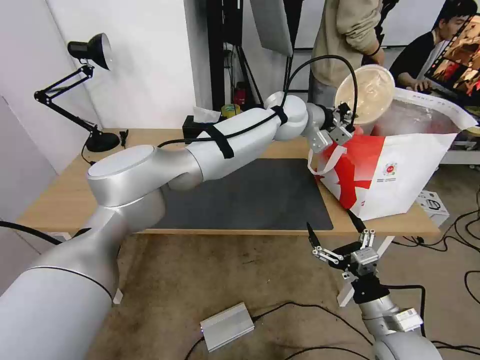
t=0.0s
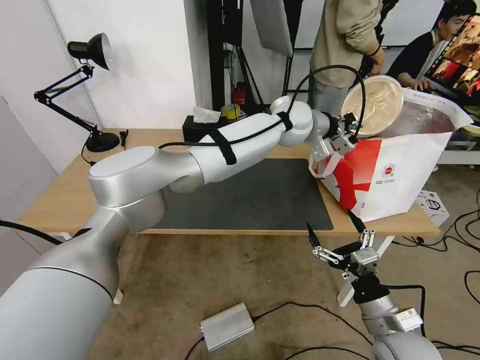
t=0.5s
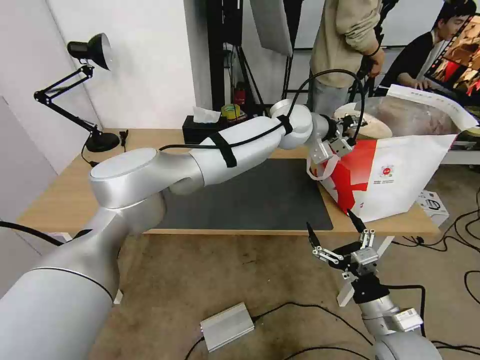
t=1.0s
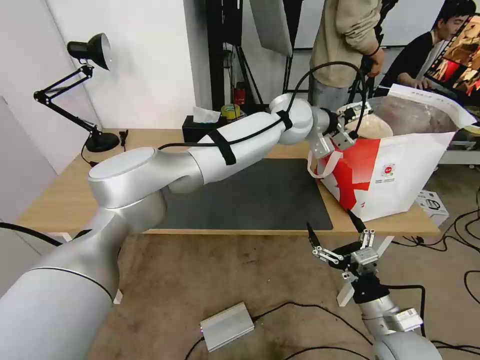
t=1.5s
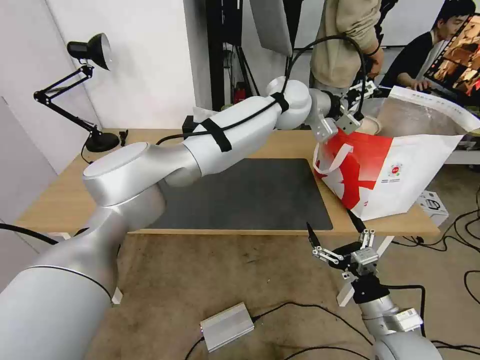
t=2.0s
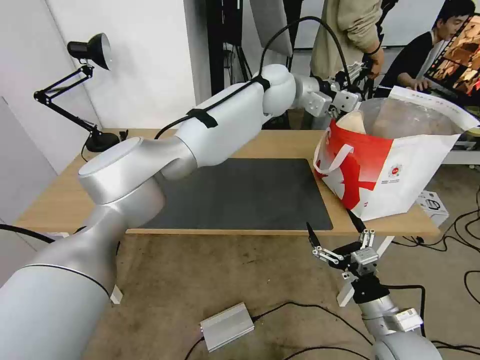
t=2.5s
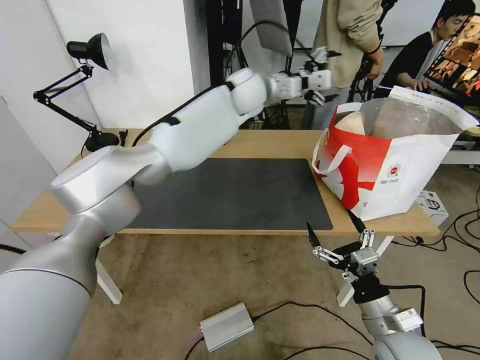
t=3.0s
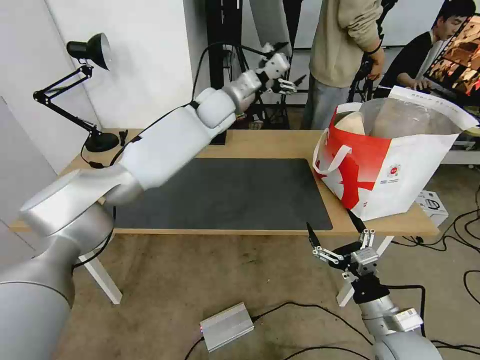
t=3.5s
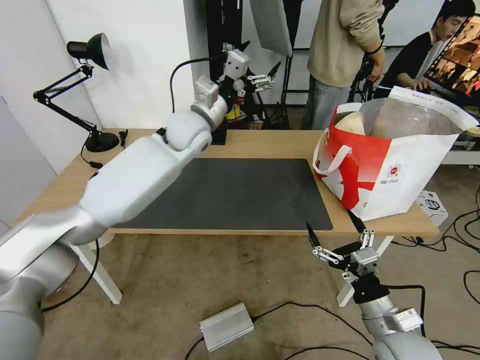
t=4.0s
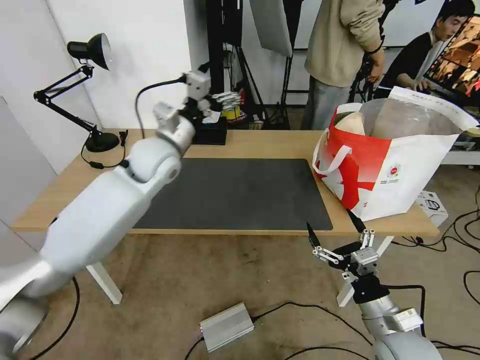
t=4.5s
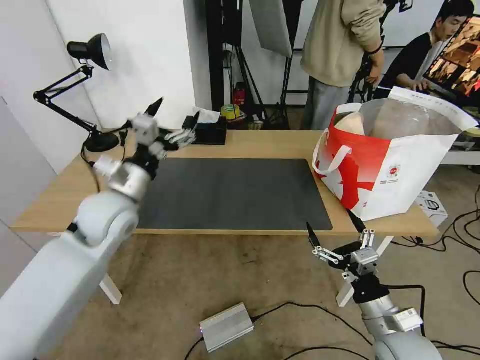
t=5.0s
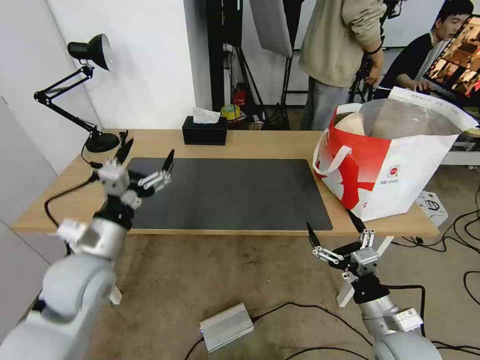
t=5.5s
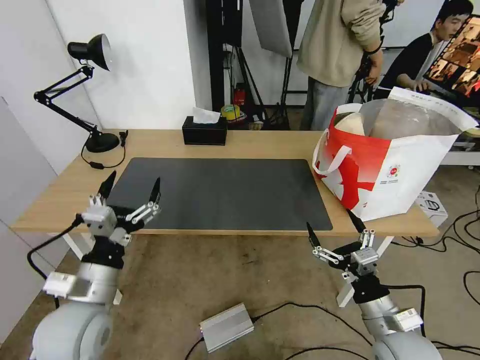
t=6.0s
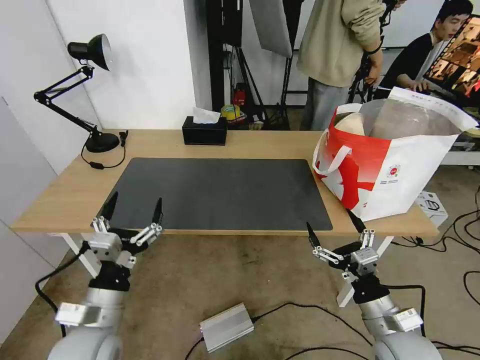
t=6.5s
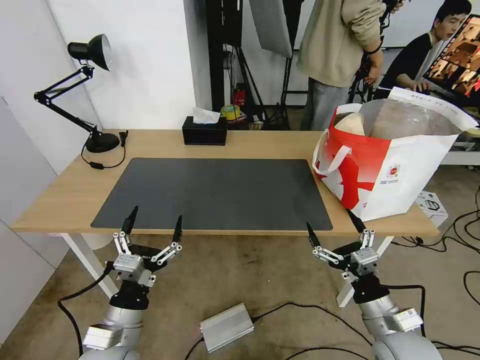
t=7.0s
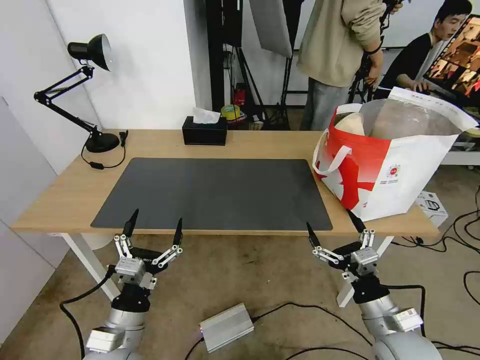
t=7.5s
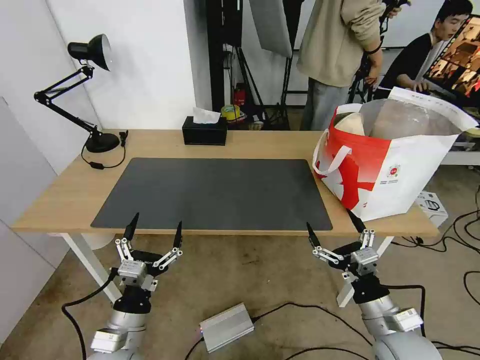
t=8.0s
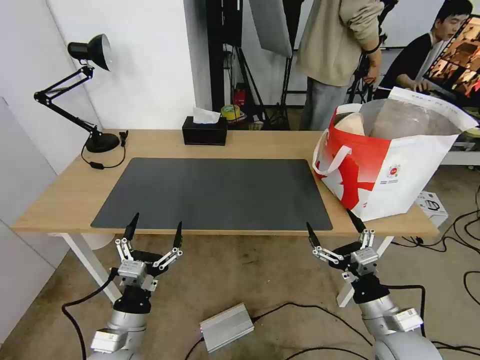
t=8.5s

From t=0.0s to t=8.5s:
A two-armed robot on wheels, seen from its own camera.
Task of the whole recording: Pick up the trash from the table and place it into the takeout bag.
From t=0.0s to t=2.0s: The left gripper opens up.
From t=2.0s to t=4.0s: The left gripper shifts some 20 cm to the left.
From t=4.0s to t=6.5s: The left gripper goes about 40 cm backward and downward.
From t=6.5s to t=8.5s: The left gripper heads downward, covering approximately 5 cm.

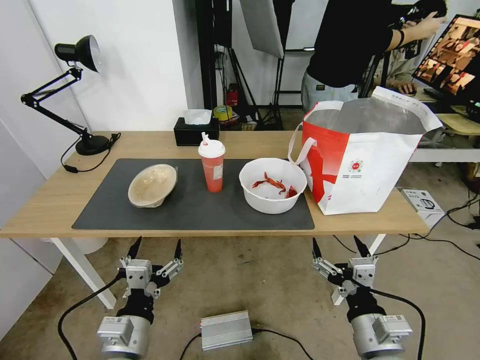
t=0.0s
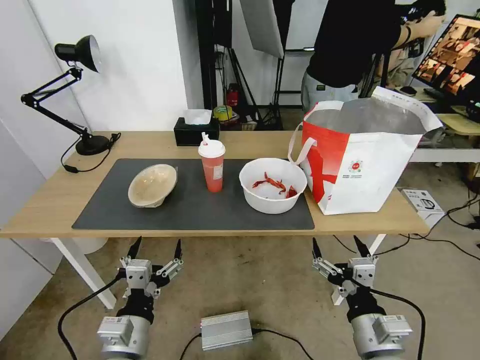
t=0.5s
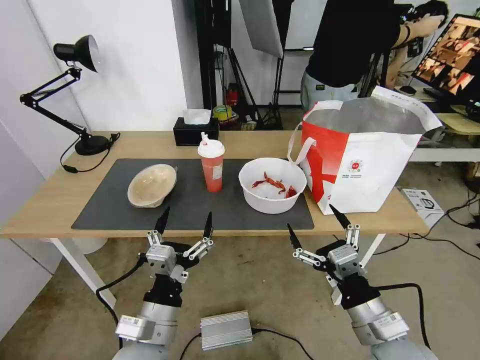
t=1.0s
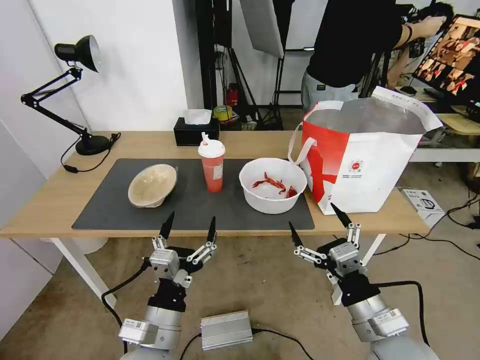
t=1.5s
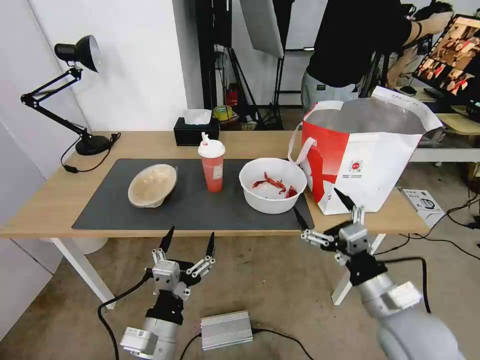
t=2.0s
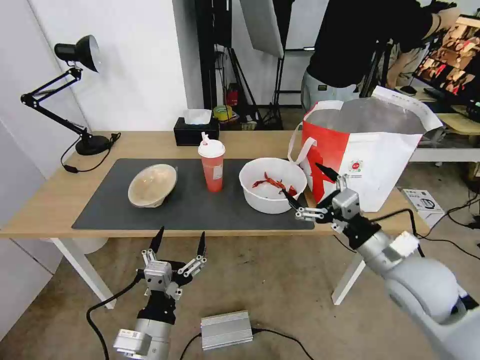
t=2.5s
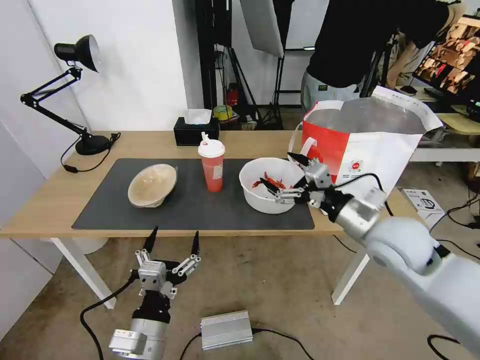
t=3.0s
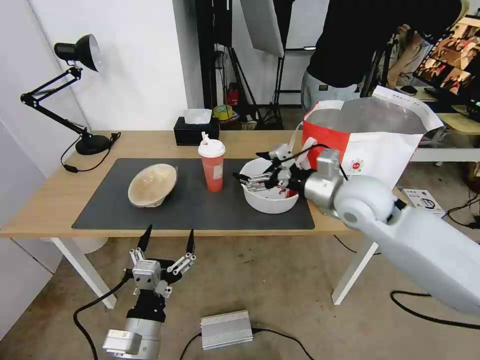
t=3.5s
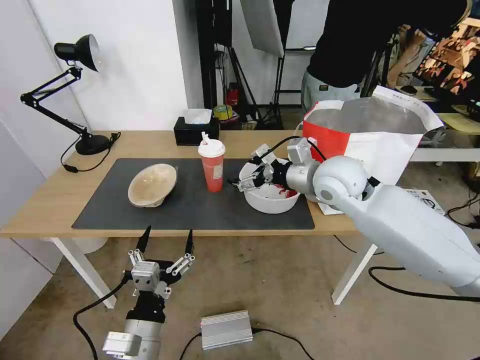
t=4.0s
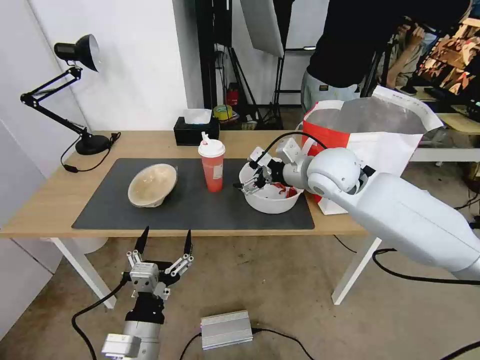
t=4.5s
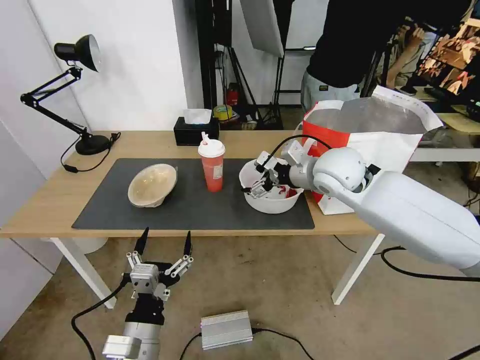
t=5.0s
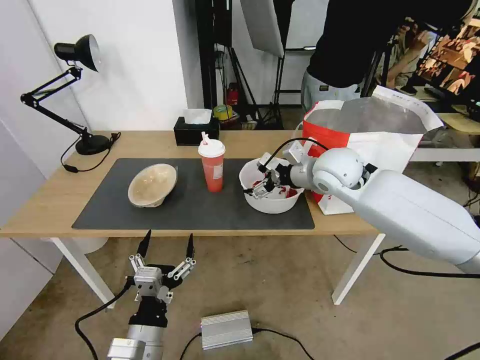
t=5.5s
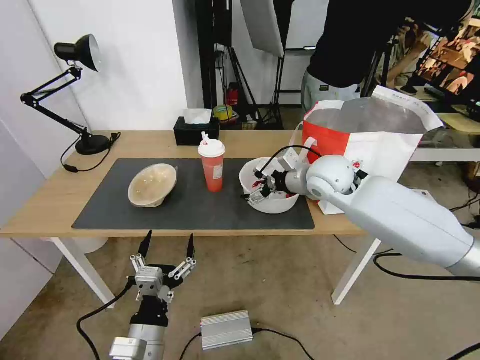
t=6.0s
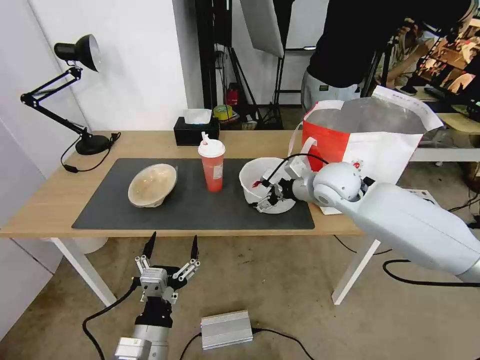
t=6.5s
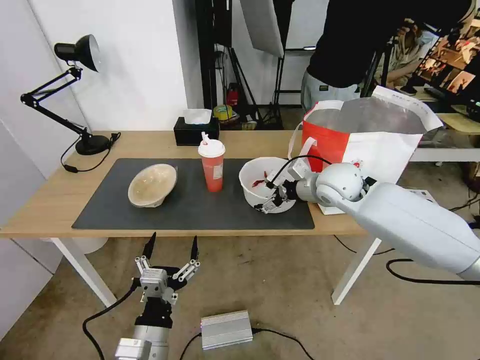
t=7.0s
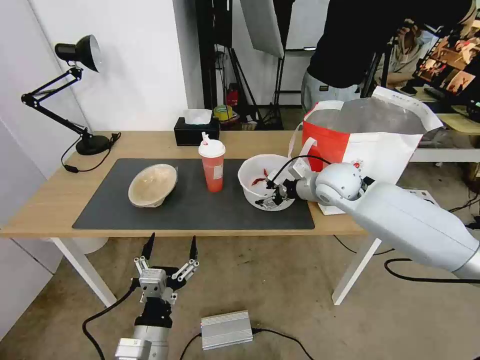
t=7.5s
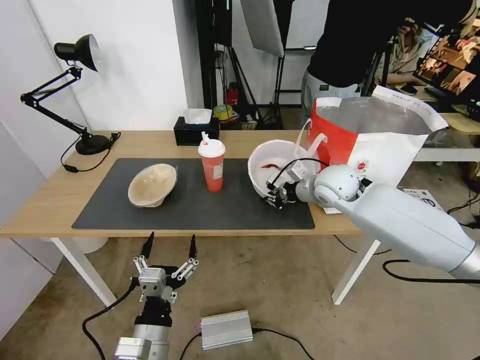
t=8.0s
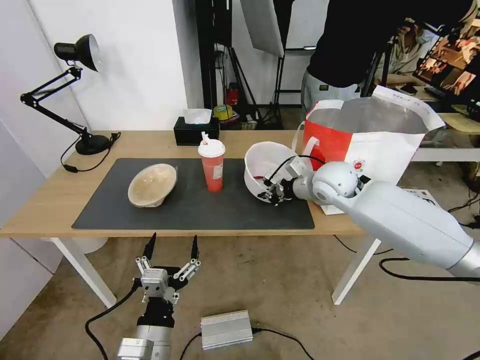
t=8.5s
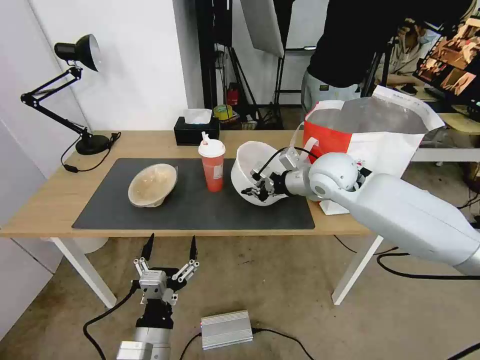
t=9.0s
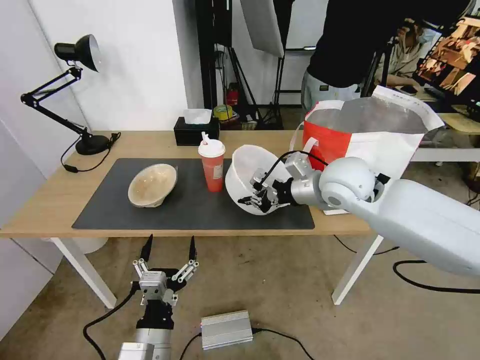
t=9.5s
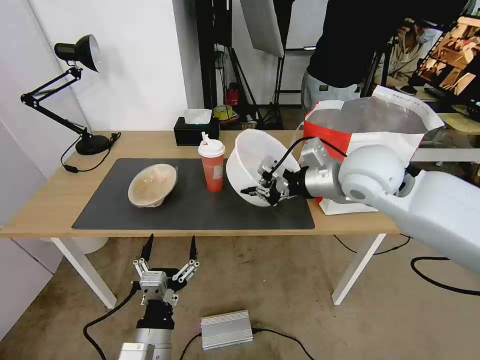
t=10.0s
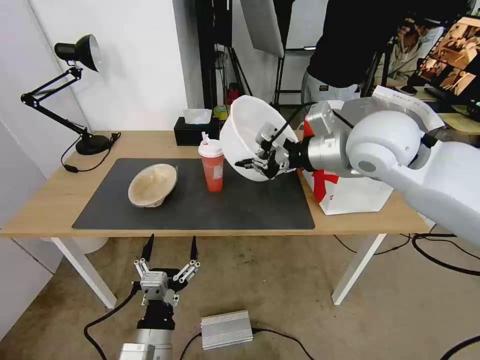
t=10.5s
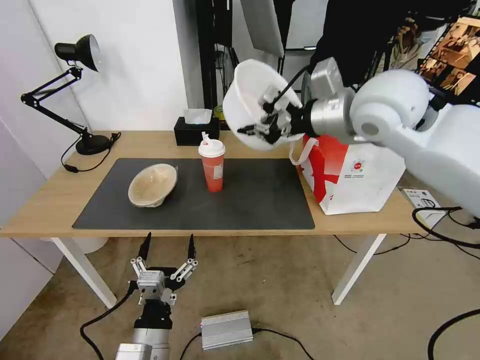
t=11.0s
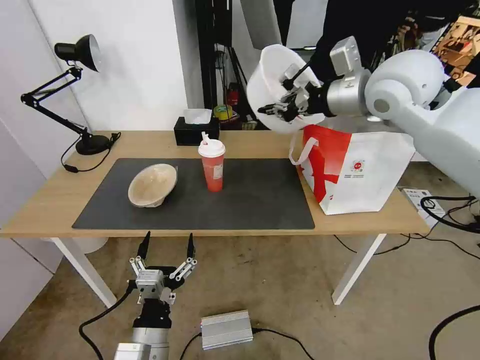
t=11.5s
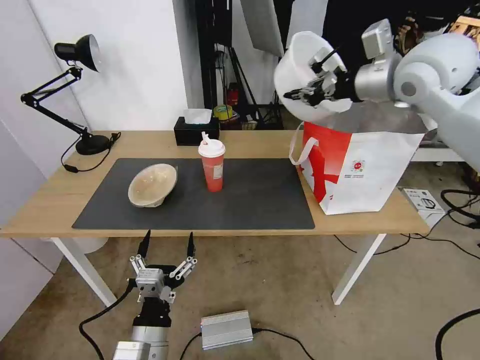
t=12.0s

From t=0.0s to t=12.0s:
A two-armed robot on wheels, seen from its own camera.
Task of the whole recording: Pick up the trash from the table and place it into the takeout bag.
From t=2.0s to t=4.0s: The right gripper travels forward and upward by some 30 cm.
From t=4.0s to t=6.0s: The right gripper ends up some 5 cm from where it was.
From t=6.0s to t=8.0s: The right gripper ends up roughly 5 cm from where it was, and closes.
From t=8.0s to t=10.0s: The right gripper goes some 15 cm upward and backward.
From t=10.0s to t=12.0s: The right gripper heads upward, forward and to the right, covering approximately 20 cm.

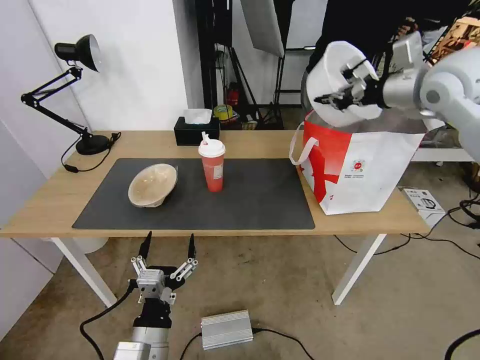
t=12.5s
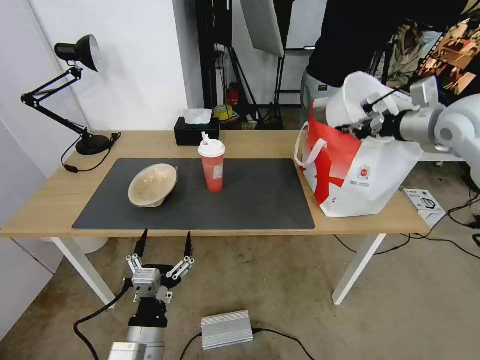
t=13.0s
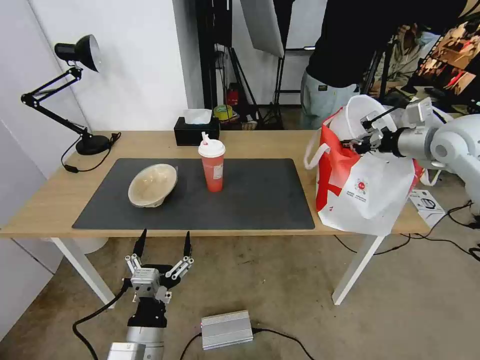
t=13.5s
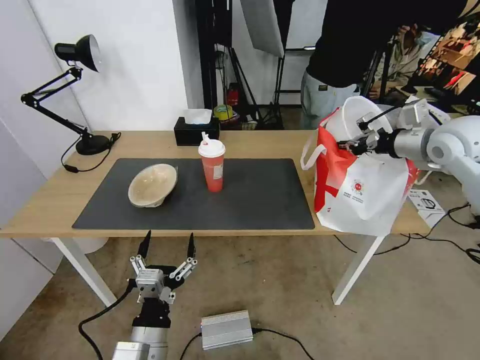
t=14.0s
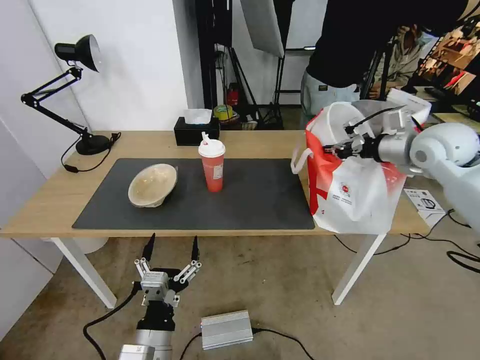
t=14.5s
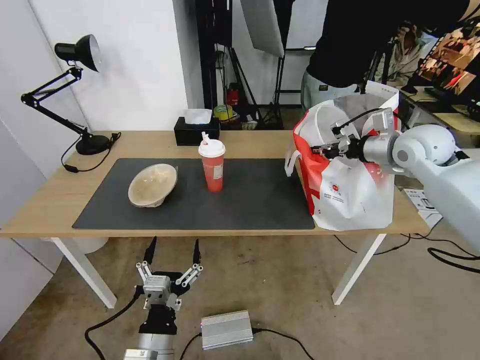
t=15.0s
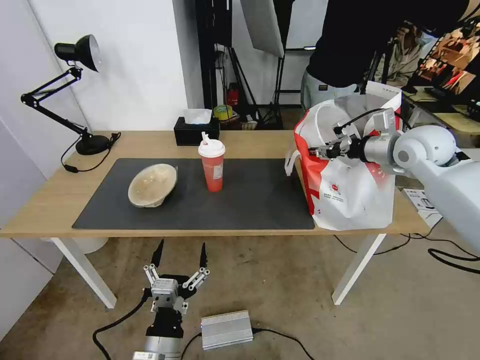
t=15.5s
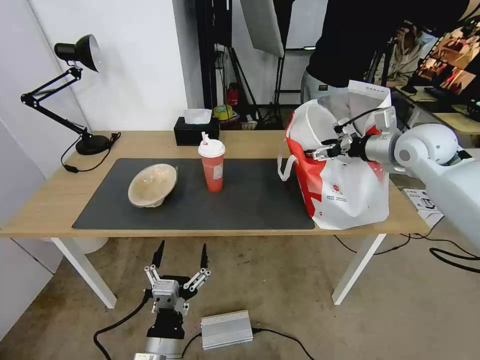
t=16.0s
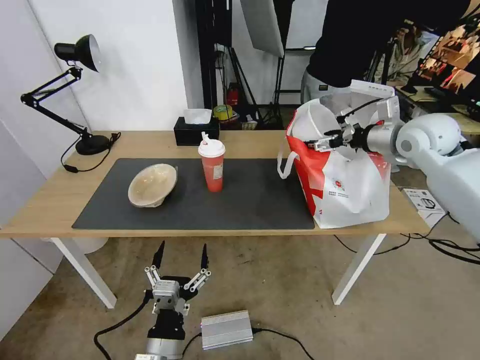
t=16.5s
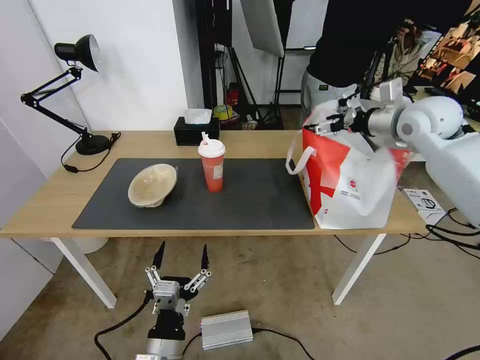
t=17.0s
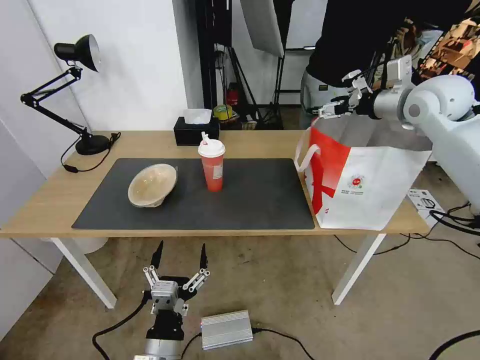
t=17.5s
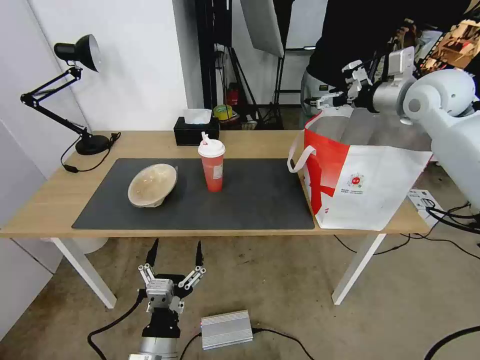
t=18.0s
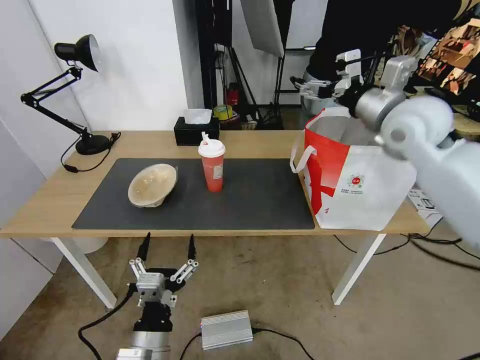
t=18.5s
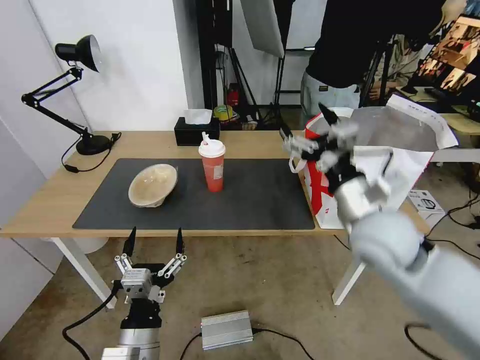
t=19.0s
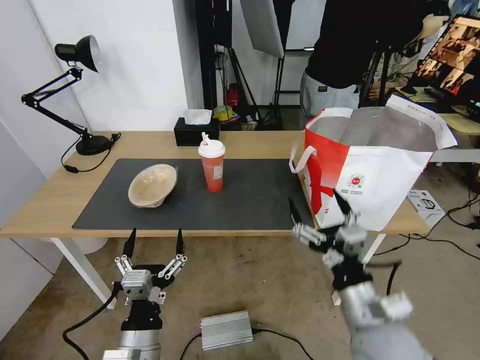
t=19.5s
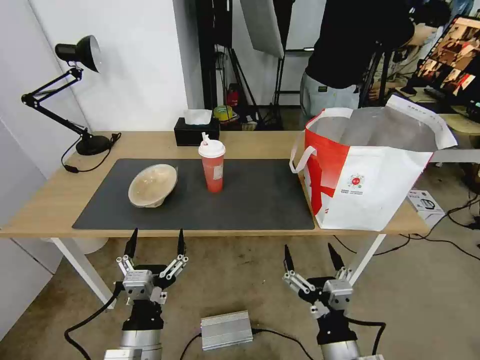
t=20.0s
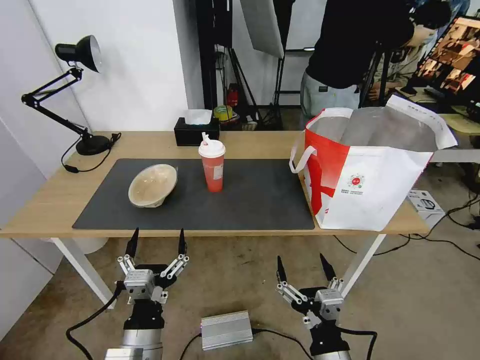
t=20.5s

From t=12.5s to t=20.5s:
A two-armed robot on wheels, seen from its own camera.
Task of the whole recording: Pick up the trash from the table and place it into the takeout bag.
From t=12.5s to t=14.5s: The right gripper goes about 10 cm downward.
From t=14.5s to t=16.5s: The right gripper opens its fingers.
From t=16.5s to t=18.5s: The right gripper goes about 10 cm to the left and backward.
From t=18.5s to t=20.5s: The right gripper is displaced backward and downward by some 50 cm.
